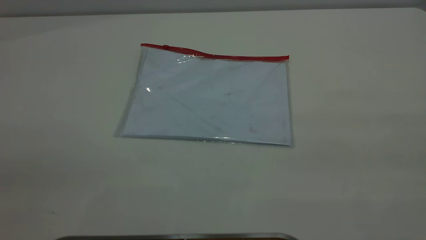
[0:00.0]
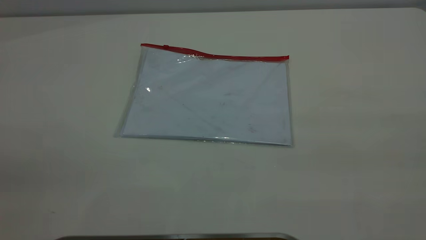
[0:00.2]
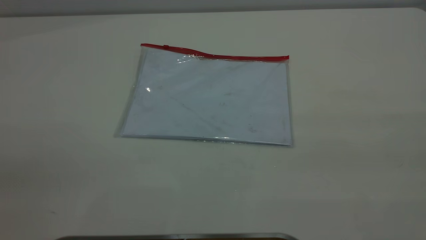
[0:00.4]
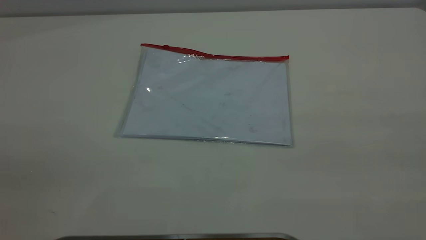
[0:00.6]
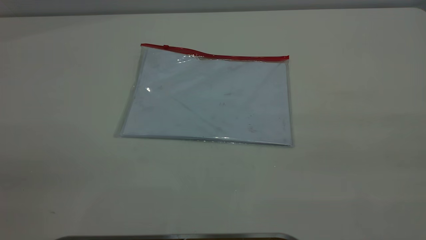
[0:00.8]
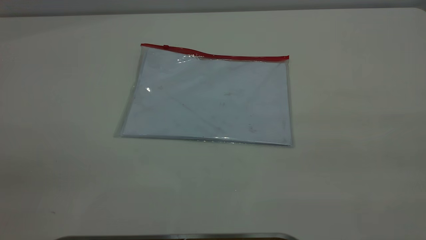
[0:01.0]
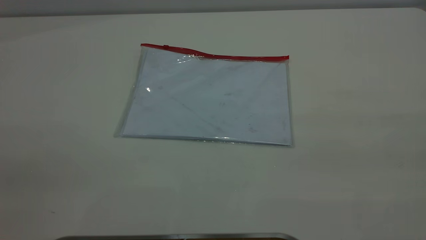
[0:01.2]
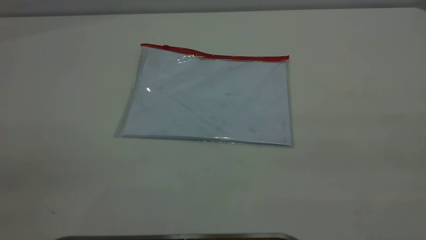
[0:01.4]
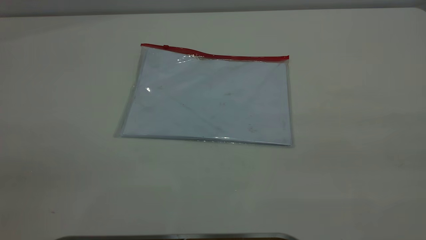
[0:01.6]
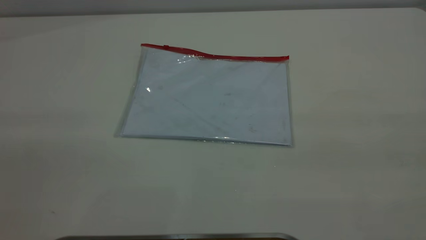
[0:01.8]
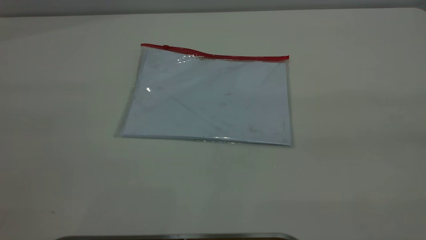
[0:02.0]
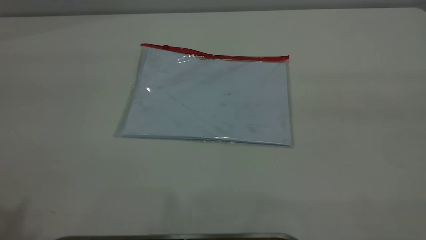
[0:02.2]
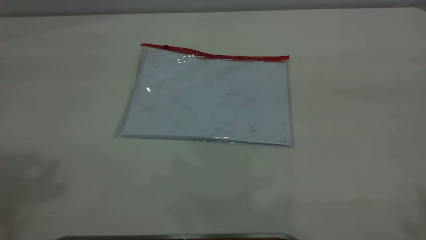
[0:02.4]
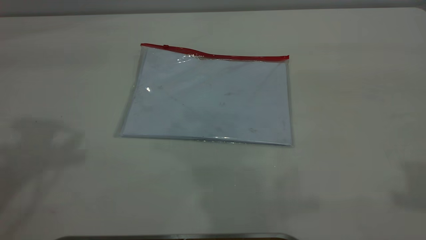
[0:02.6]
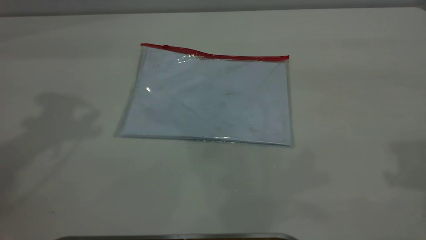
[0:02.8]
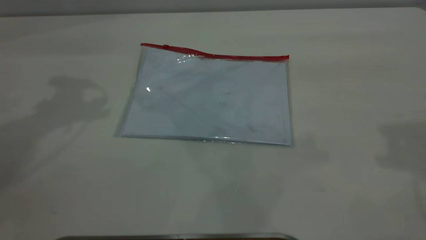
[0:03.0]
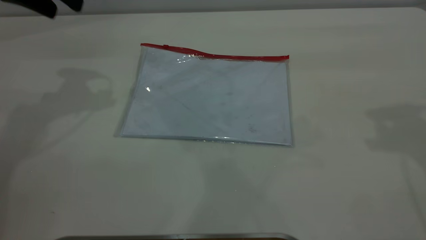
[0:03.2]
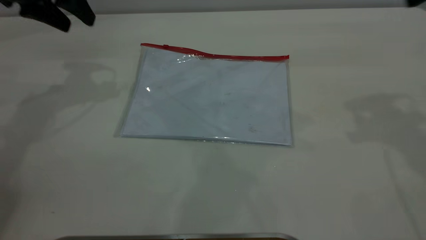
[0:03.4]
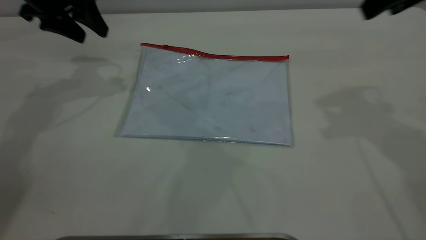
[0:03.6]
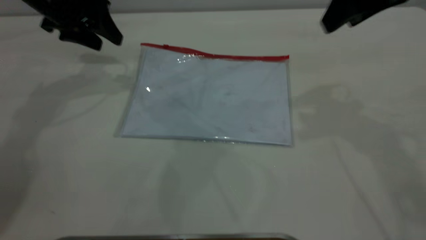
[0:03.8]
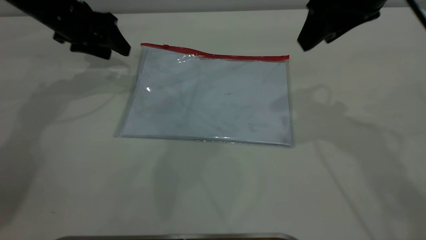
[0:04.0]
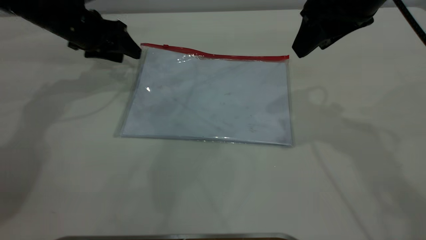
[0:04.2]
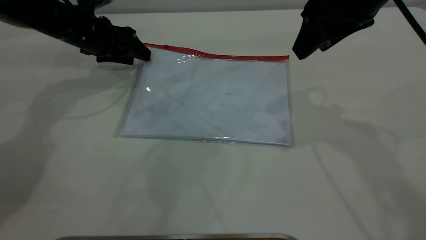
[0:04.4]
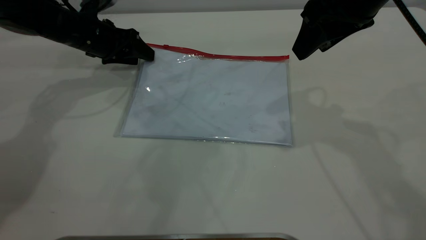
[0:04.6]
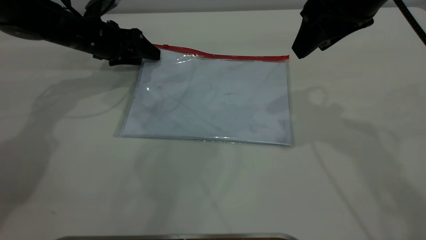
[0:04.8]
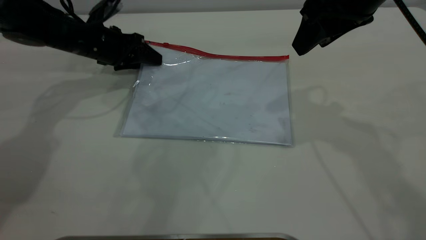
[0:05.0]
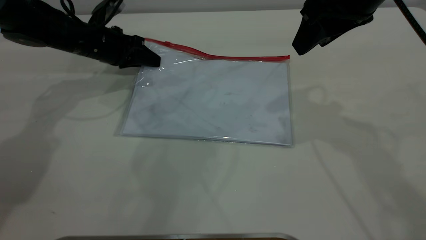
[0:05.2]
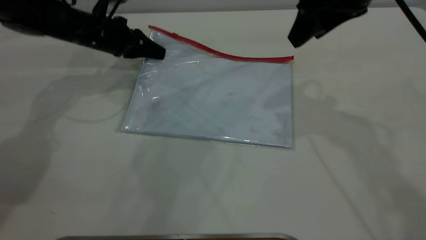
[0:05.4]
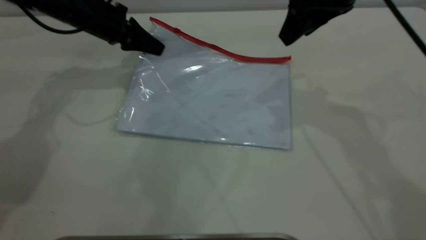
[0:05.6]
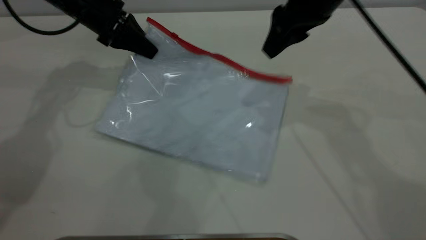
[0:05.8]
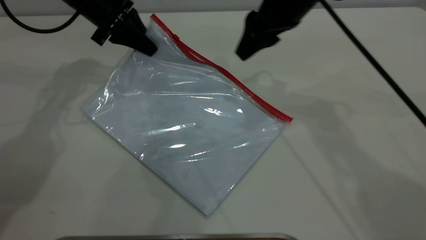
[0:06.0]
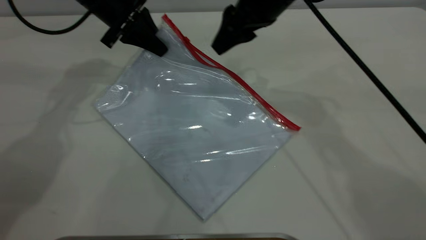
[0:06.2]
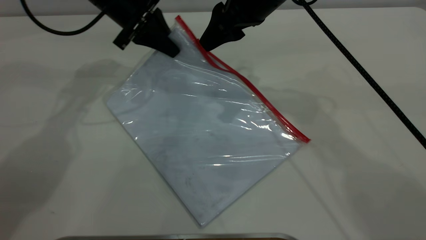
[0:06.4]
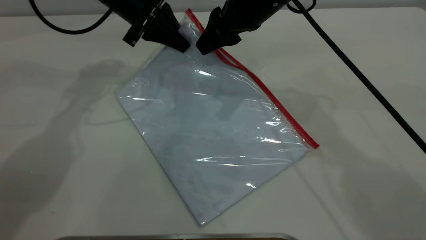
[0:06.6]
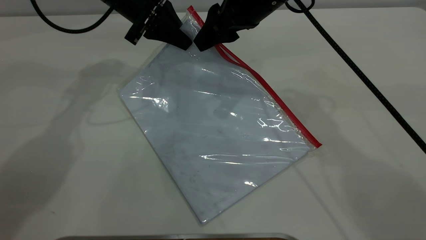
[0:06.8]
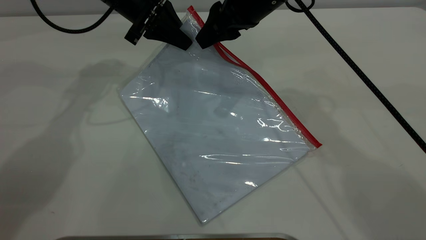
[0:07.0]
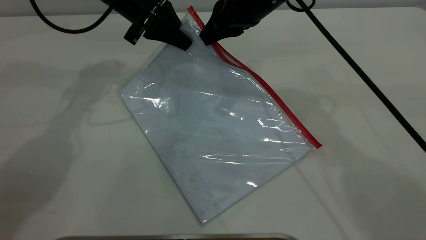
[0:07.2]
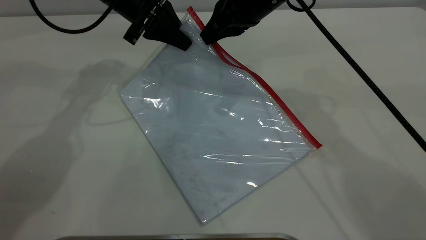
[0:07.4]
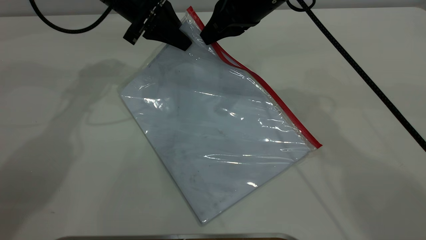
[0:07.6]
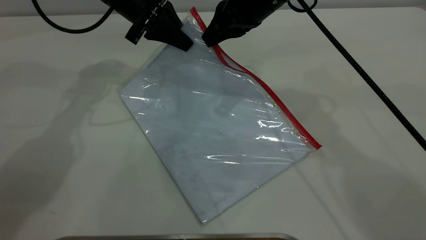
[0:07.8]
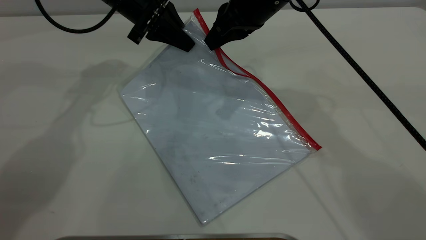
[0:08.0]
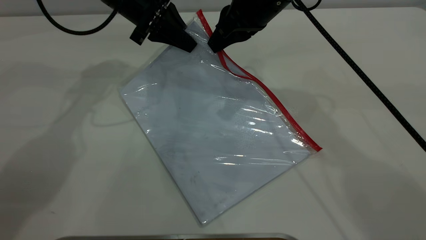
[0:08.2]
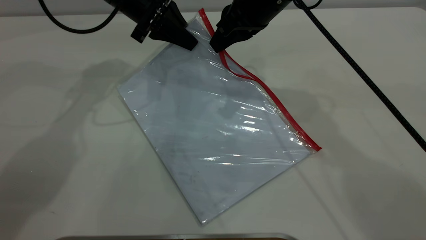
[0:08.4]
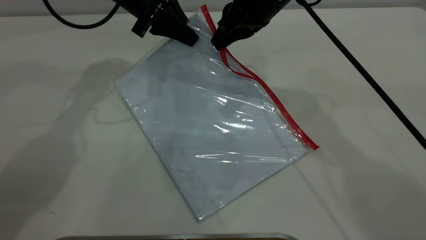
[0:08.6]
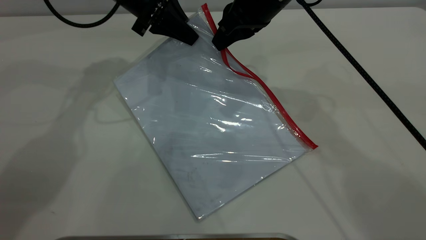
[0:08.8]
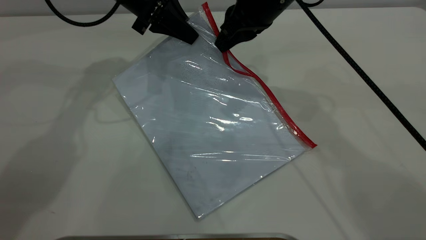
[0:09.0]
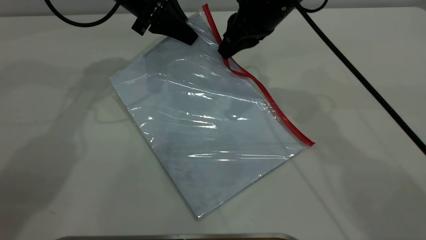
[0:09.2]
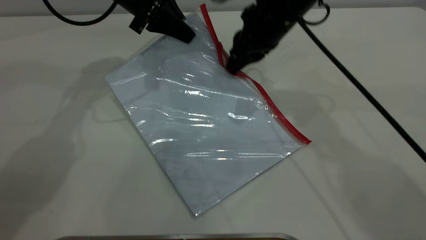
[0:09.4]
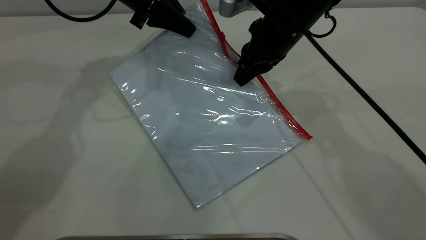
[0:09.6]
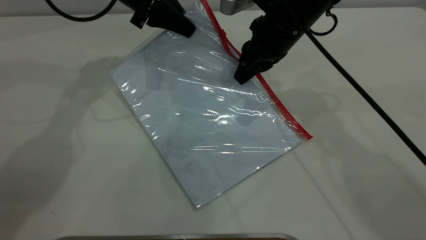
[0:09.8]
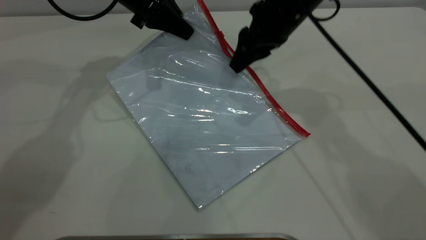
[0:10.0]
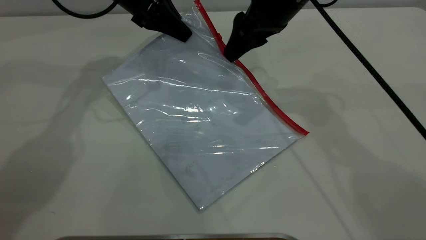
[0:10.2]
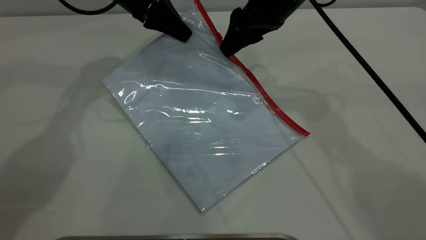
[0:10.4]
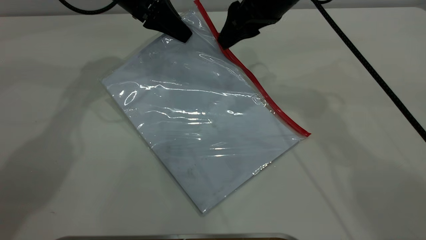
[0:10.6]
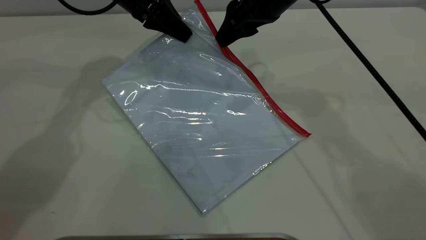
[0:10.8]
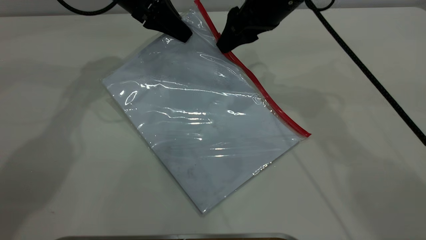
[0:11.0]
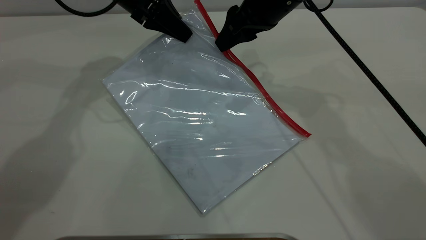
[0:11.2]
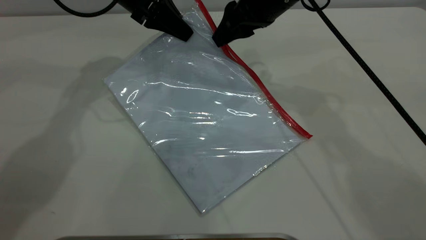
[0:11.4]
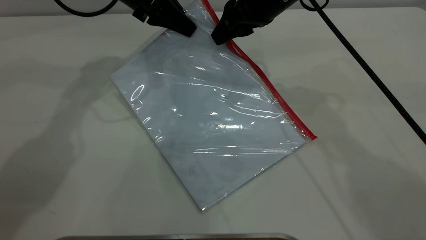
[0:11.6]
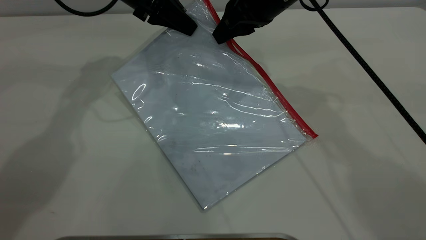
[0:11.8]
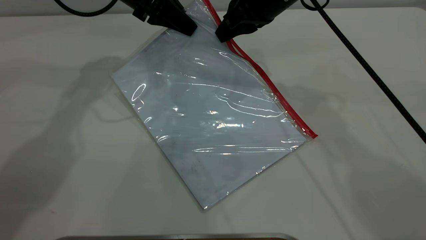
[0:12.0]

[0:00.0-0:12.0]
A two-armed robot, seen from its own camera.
Step, 0:00.0 to 0:05.6: Pick up the transparent plastic bag with the left gripper.
0:00.0 to 0:01.6: Both grippers stay put.
0:03.0 to 0:04.4: The right gripper goes some 20 cm to the left, downward and forward. Meanwhile the left gripper travels downward and forward by approximately 25 cm.
0:04.4 to 0:06.0: The right gripper moves to the left and forward, roughly 10 cm. The left gripper travels upward by approximately 5 cm, and closes.
0:06.0 to 0:07.6: The left gripper moves to the right, about 5 cm; the right gripper closes.
0:07.6 to 0:09.0: The grippers stay close to where they were, moving slightly.
0:09.0 to 0:10.4: The right gripper opens its fingers.
0:10.4 to 0:12.0: The right gripper closes up.

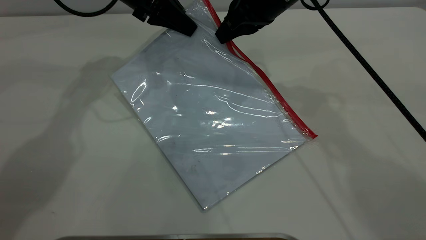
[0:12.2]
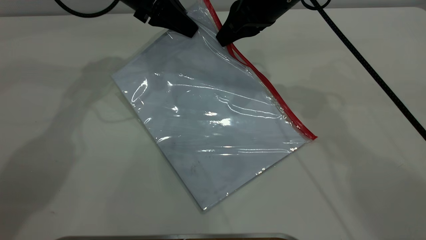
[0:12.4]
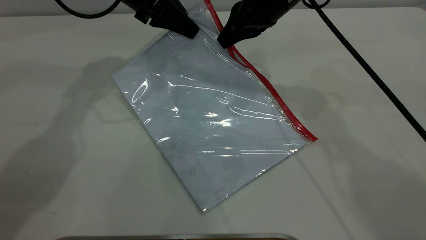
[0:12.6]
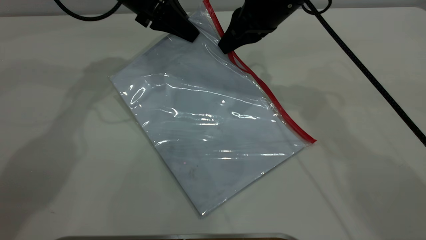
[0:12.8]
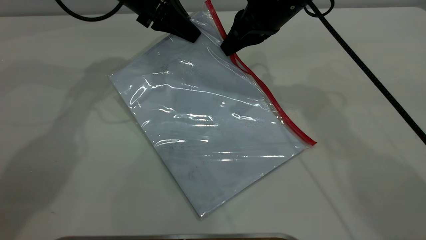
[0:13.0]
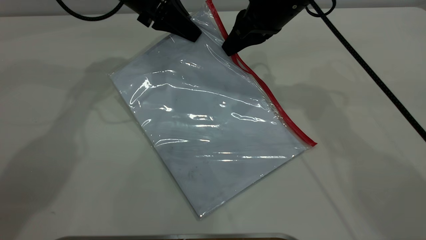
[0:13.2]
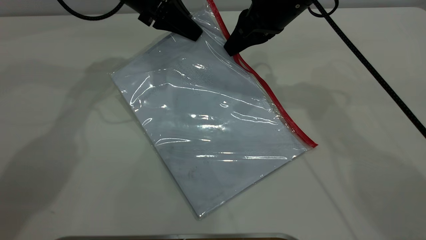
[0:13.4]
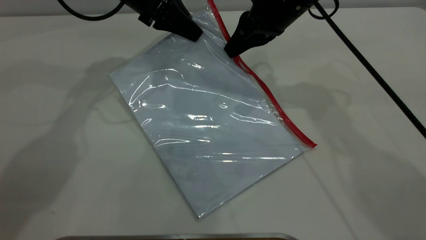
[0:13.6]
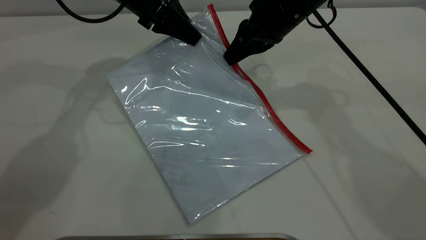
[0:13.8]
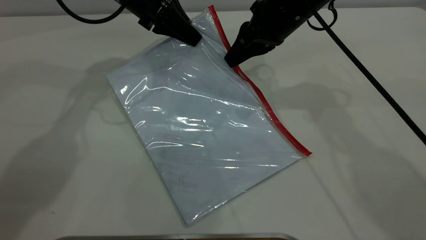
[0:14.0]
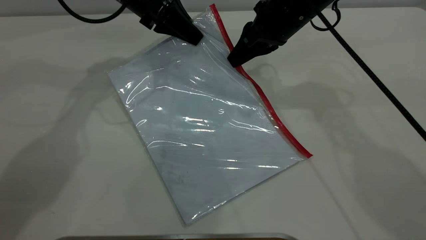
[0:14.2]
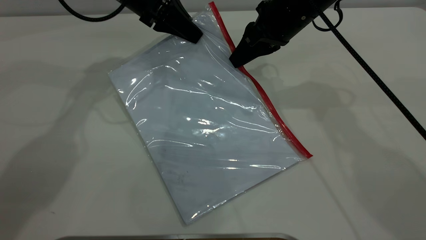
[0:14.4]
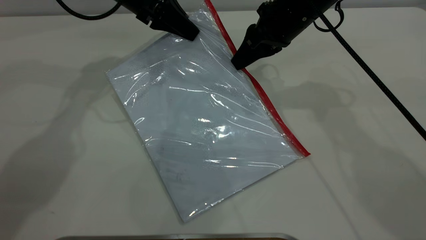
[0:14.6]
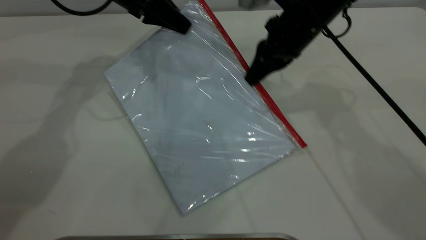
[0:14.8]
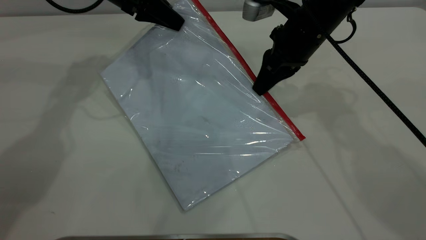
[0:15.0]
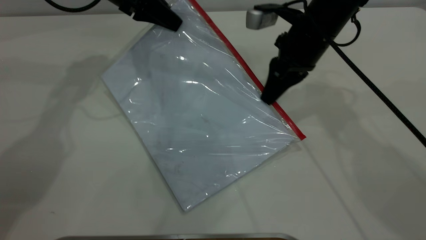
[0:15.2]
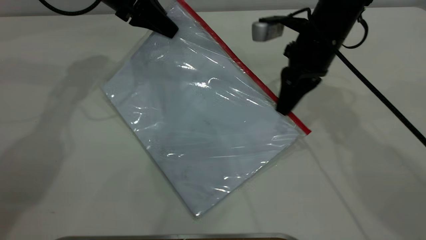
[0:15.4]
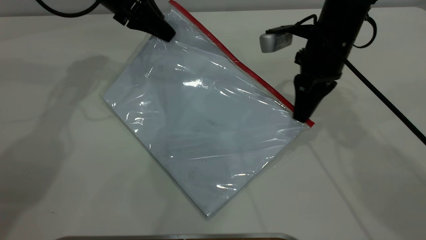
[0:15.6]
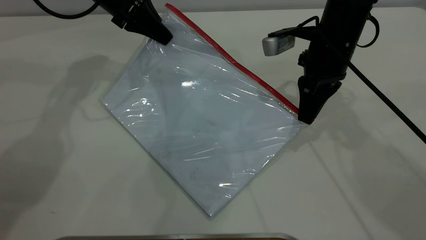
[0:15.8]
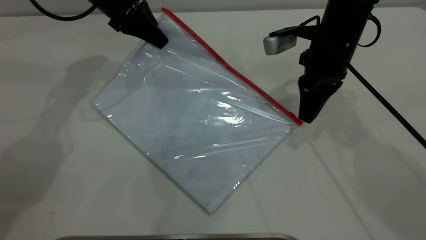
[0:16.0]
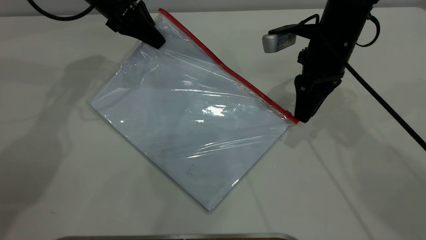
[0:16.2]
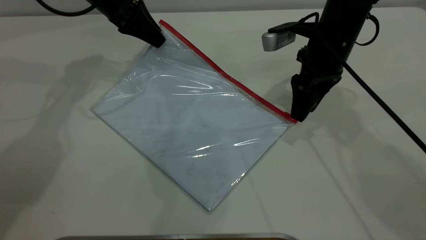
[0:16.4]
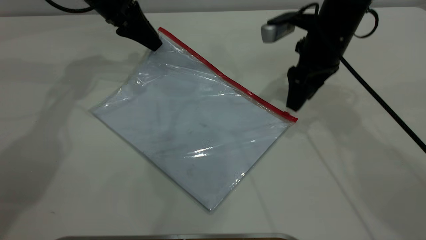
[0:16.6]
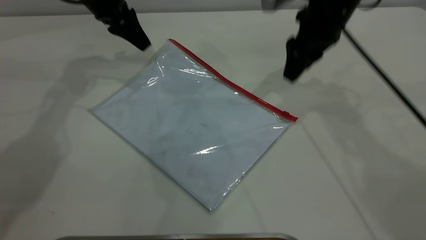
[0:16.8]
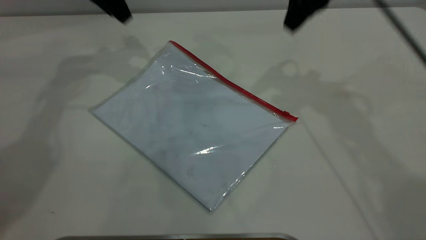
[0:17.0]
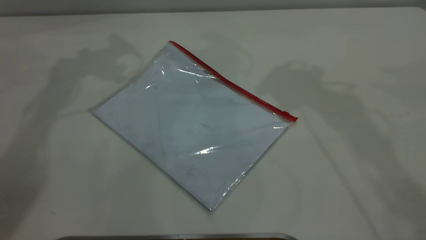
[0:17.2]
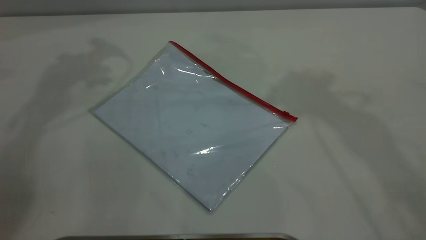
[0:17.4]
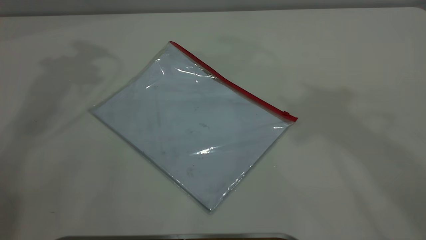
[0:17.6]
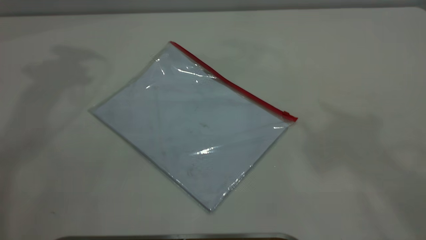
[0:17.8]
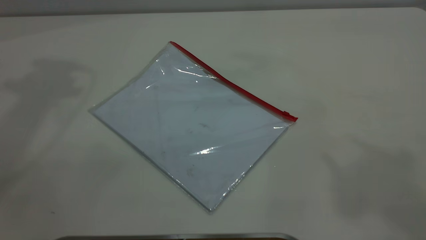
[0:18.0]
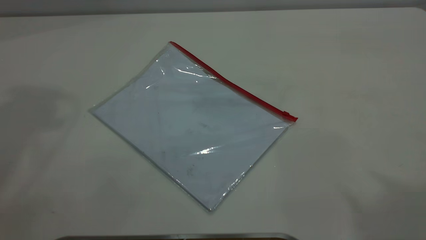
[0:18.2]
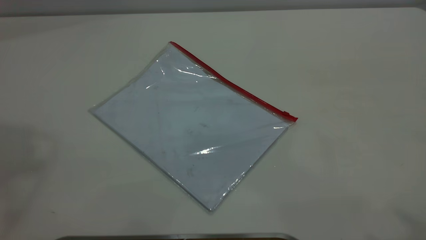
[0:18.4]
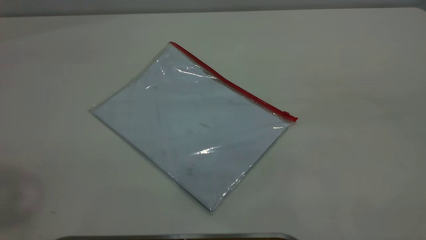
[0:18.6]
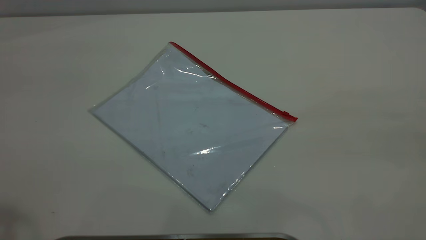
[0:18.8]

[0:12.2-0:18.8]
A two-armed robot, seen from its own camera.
Step, 0:12.2 to 0:16.4: Pulling up the zipper on the transparent plastic bag with the right gripper to close it.
0:12.2 to 0:13.8: The grippers stay close to where they were, moving slightly.
0:13.8 to 0:15.4: The right gripper ends up roughly 5 cm from where it was.
0:15.4 to 0:17.2: The left gripper heads upward and to the left, covering about 15 cm, and opens up, while the right gripper heads upward, covering about 25 cm, and opens up.
